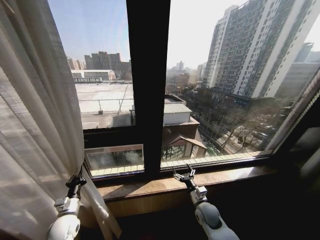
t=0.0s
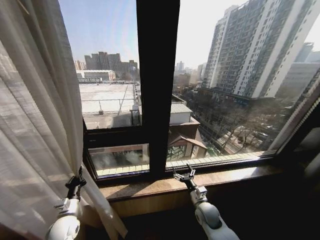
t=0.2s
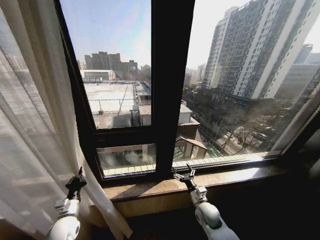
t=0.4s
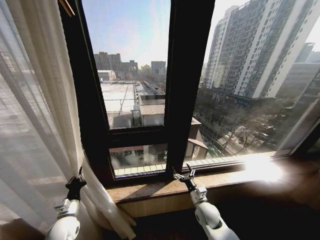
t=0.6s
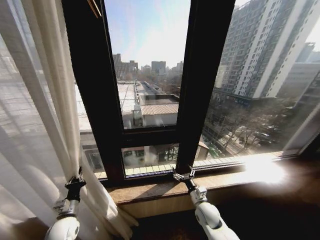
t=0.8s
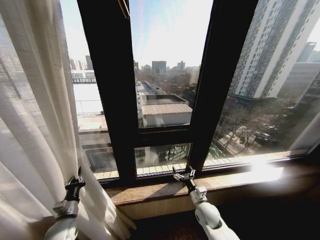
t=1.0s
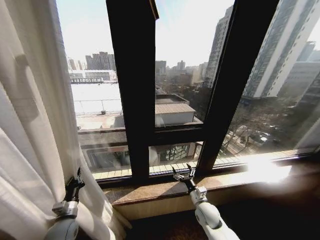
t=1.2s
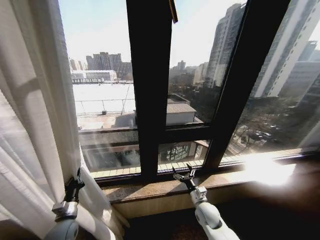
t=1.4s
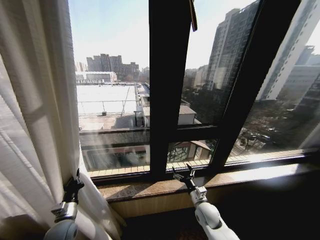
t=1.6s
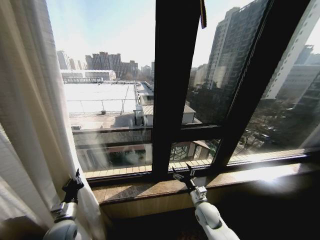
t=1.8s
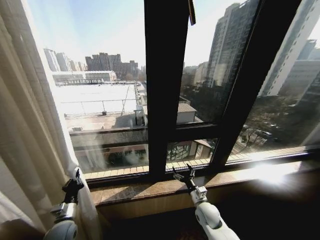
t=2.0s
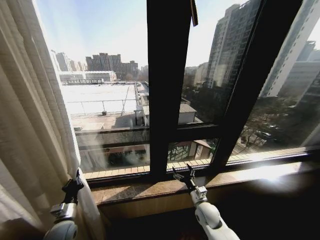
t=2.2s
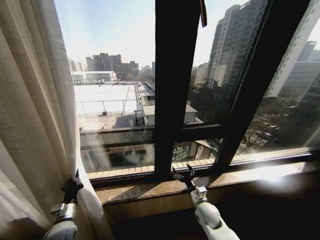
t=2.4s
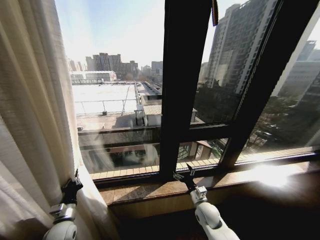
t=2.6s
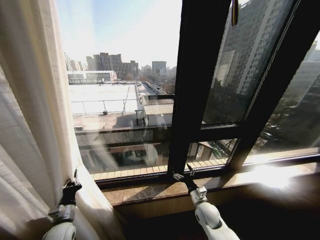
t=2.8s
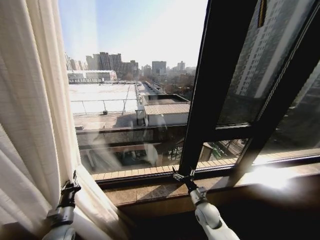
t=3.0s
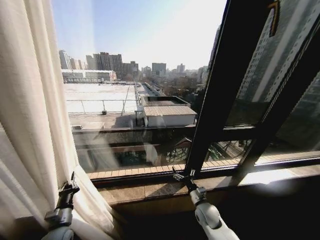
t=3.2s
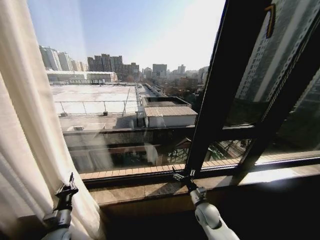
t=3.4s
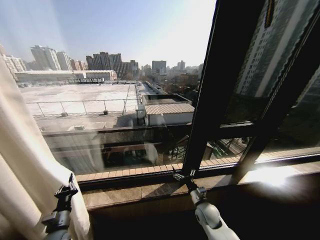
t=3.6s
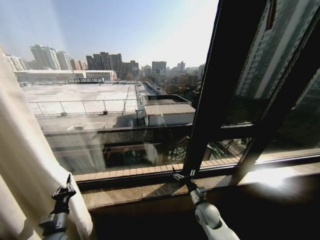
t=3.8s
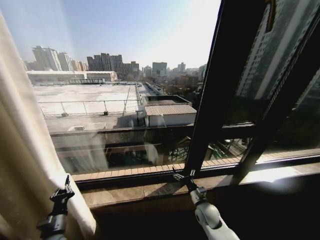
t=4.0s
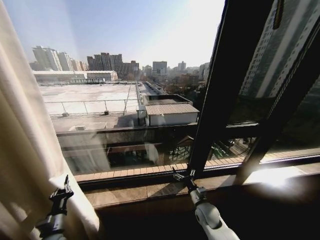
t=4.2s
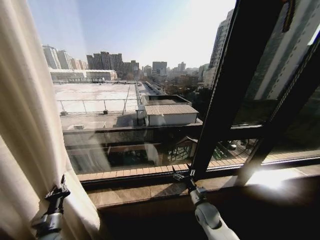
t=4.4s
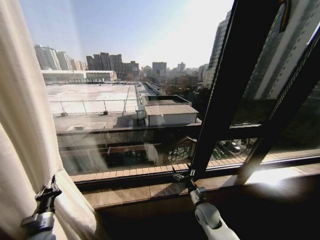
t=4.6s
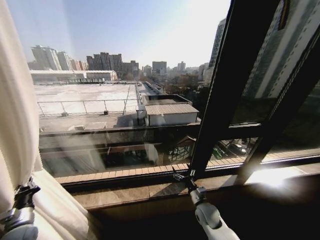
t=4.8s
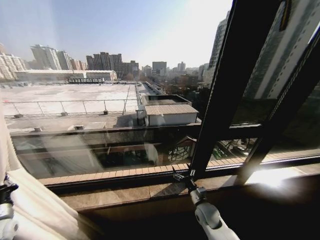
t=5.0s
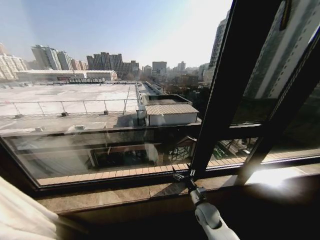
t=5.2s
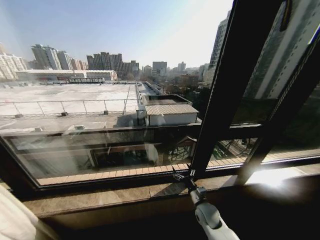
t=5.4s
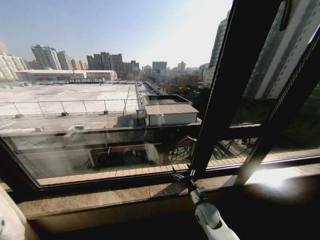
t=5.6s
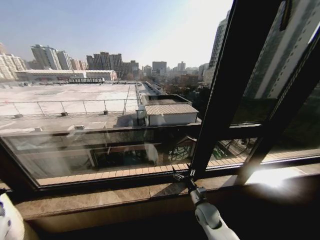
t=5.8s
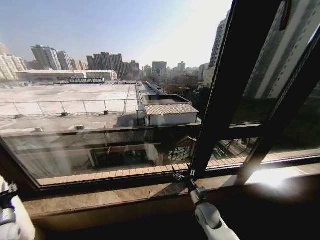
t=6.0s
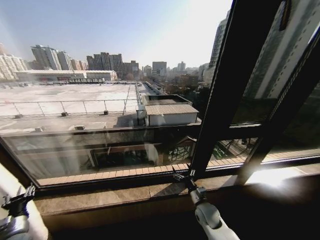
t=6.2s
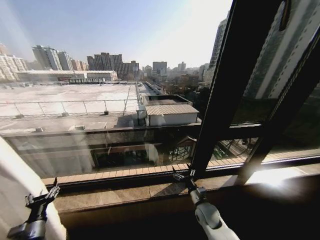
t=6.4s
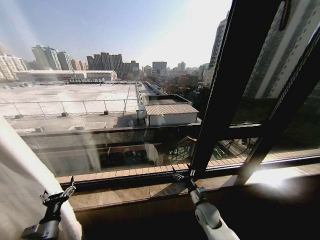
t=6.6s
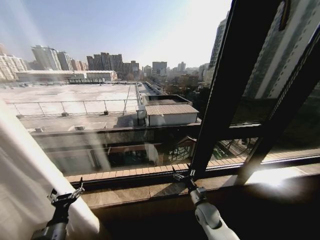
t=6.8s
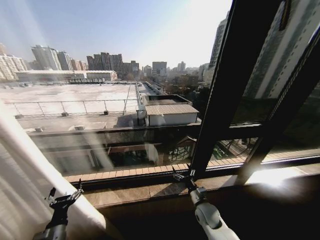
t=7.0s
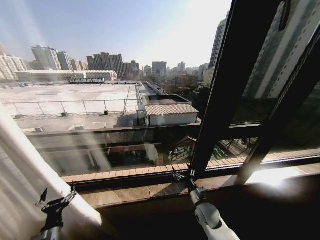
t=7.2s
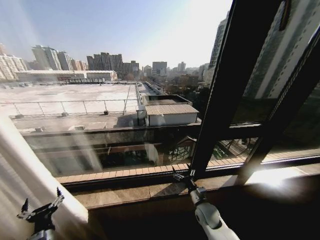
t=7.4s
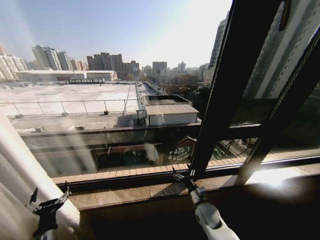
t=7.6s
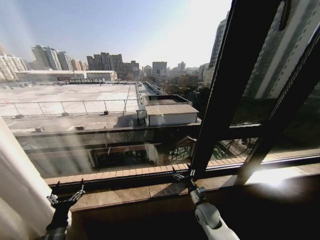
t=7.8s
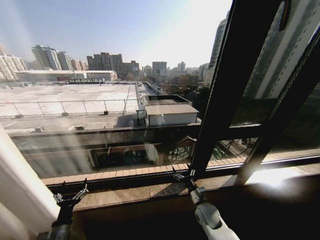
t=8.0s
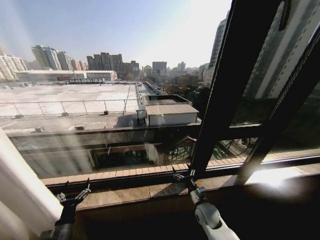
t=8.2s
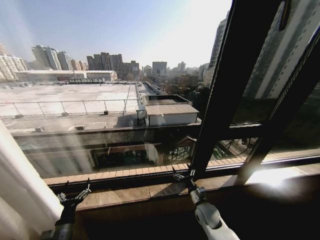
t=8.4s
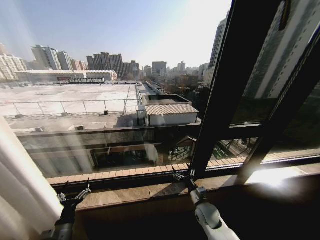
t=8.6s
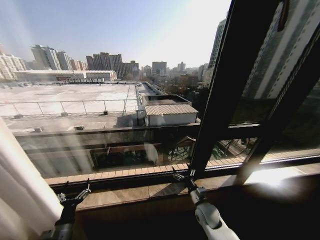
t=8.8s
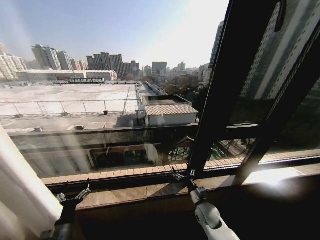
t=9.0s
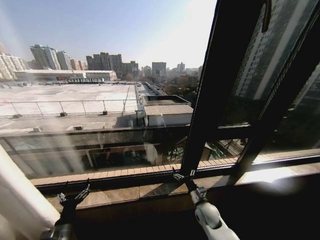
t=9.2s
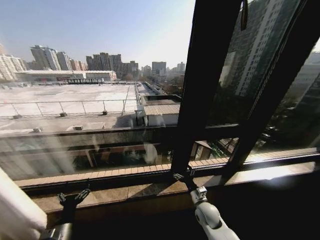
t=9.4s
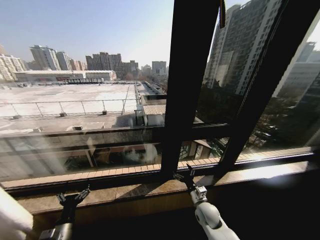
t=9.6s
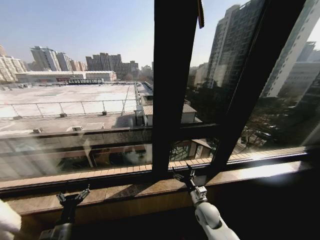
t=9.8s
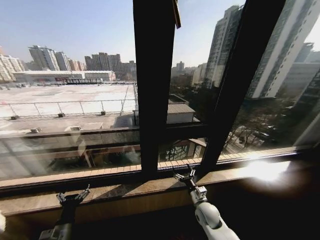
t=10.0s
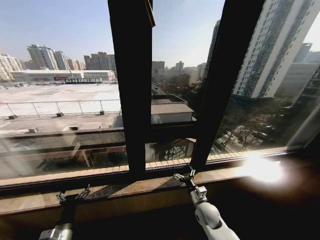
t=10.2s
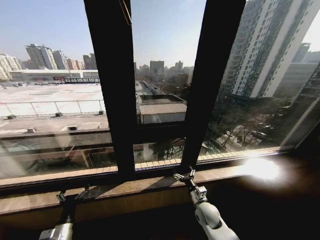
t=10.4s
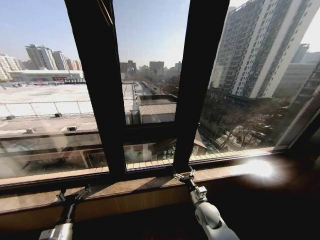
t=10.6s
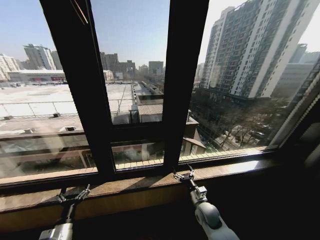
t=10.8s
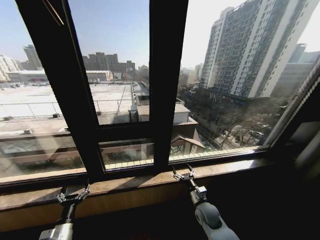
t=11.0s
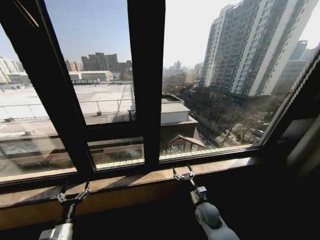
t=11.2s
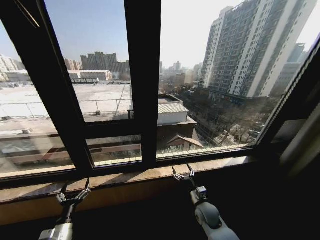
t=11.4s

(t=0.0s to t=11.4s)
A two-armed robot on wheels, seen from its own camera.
Task of the whole recording: Open the curtains by pulling them apart, changing their state from closed to fully open.
t=4.2s - t=5.6s: The left gripper travels to the left by about 30 cm.
t=5.6s - t=7.2s: The left gripper shifts approximately 30 cm to the right, and opens.
